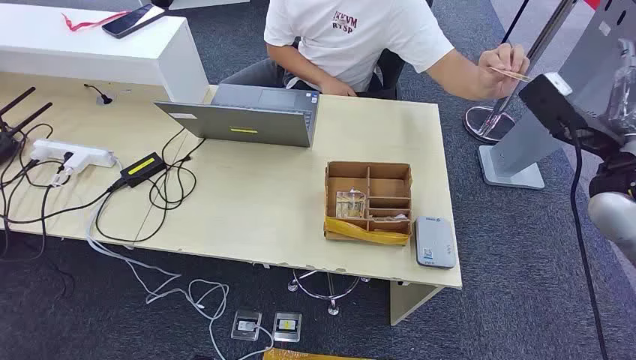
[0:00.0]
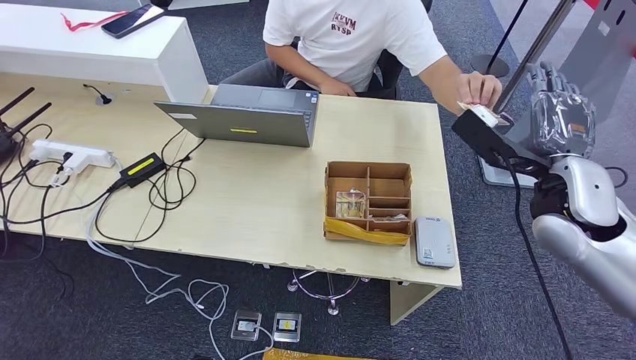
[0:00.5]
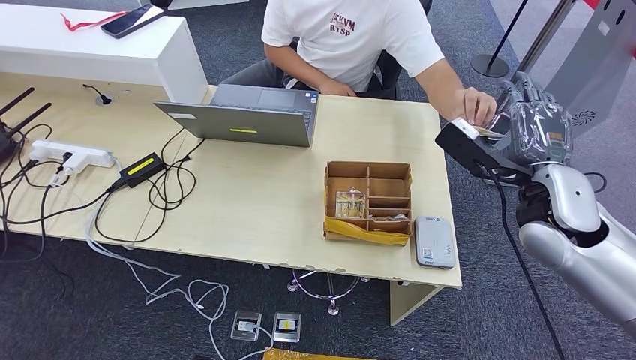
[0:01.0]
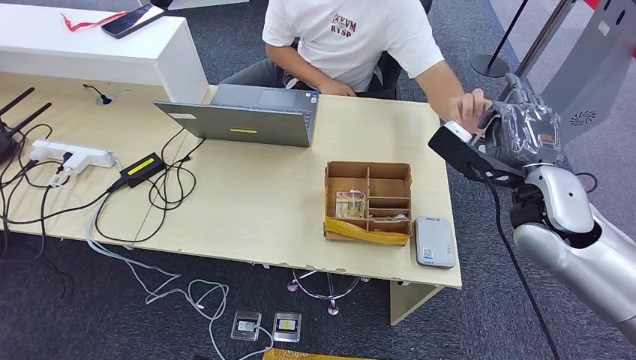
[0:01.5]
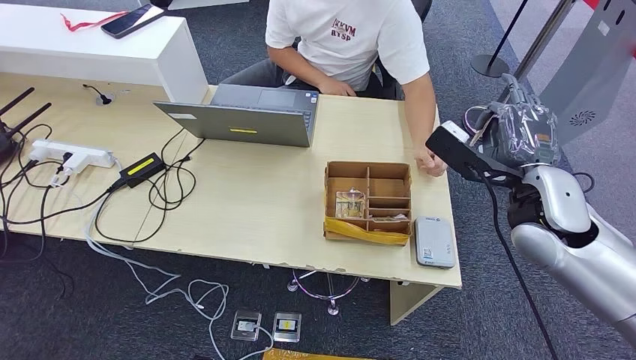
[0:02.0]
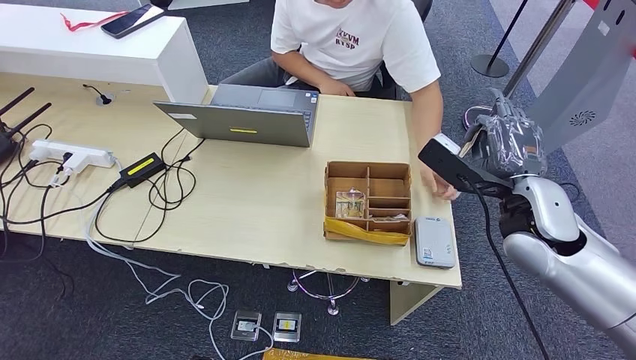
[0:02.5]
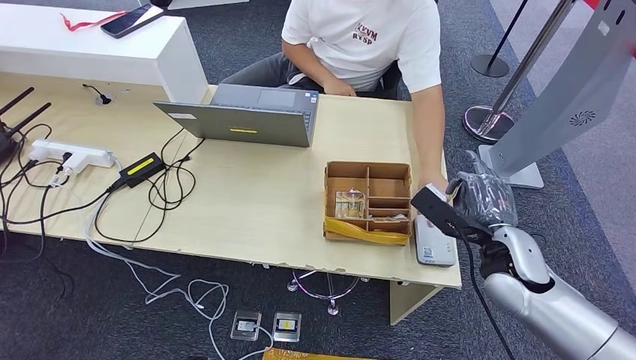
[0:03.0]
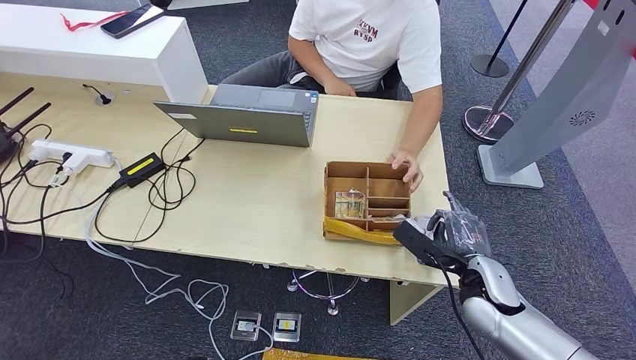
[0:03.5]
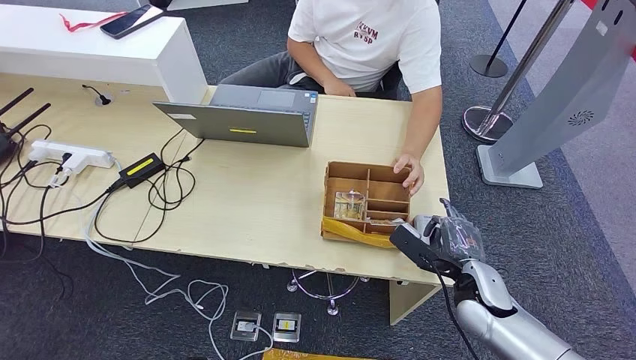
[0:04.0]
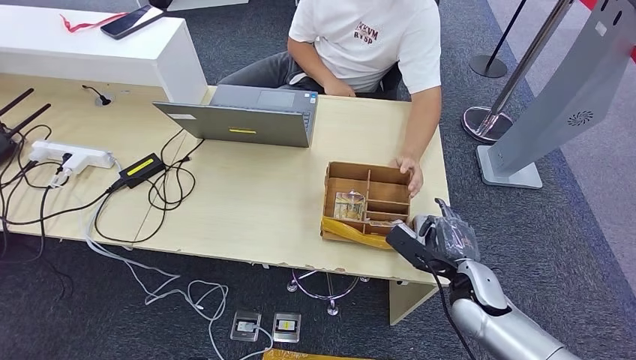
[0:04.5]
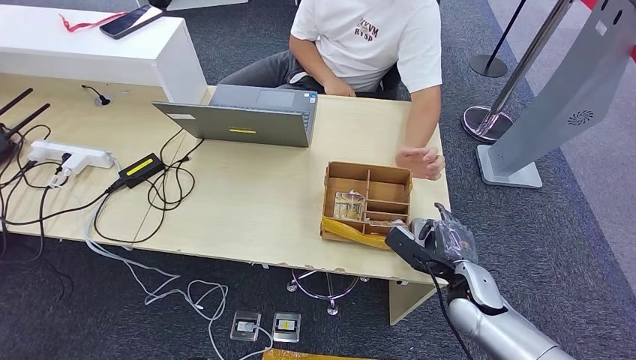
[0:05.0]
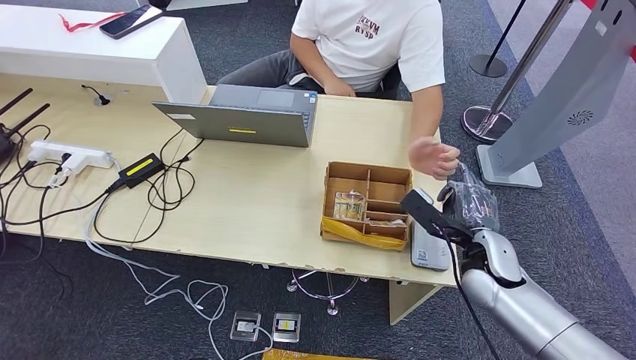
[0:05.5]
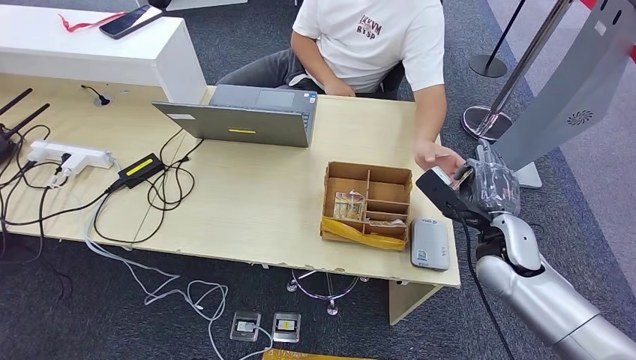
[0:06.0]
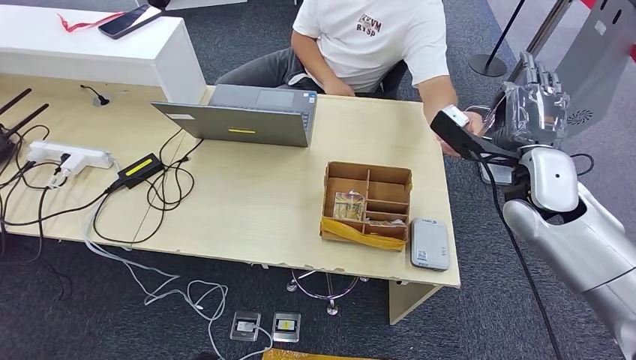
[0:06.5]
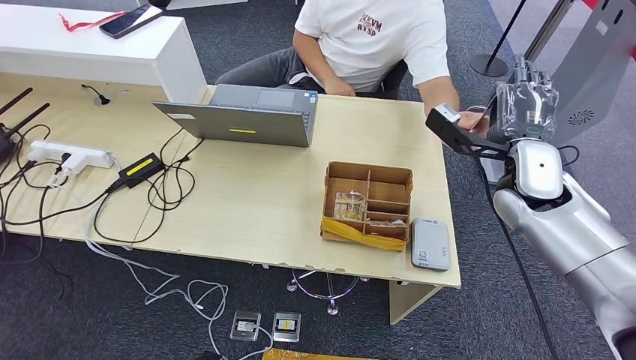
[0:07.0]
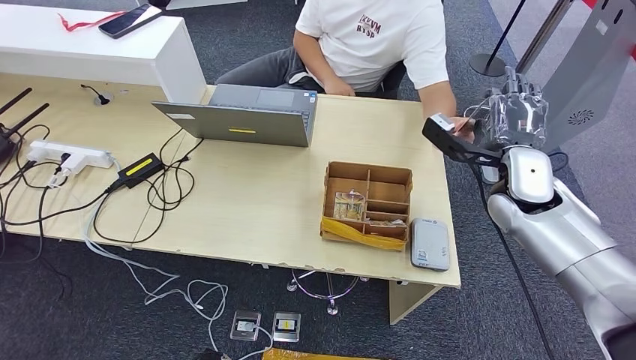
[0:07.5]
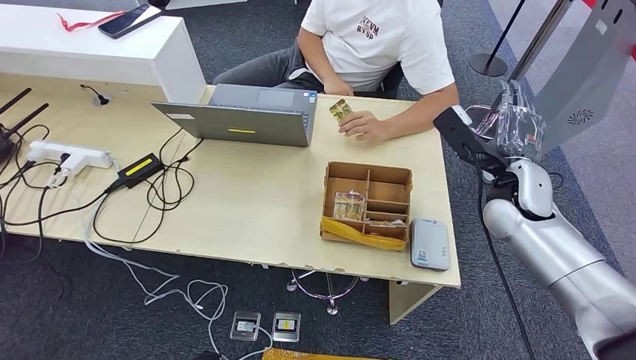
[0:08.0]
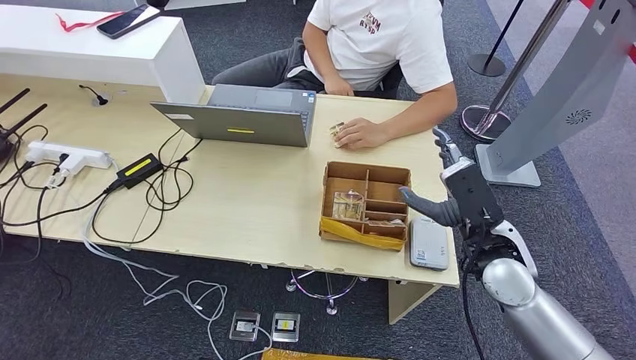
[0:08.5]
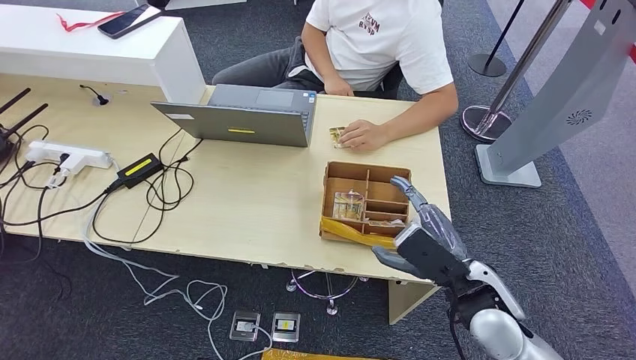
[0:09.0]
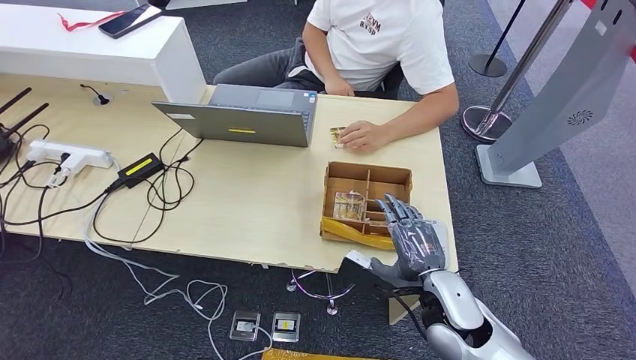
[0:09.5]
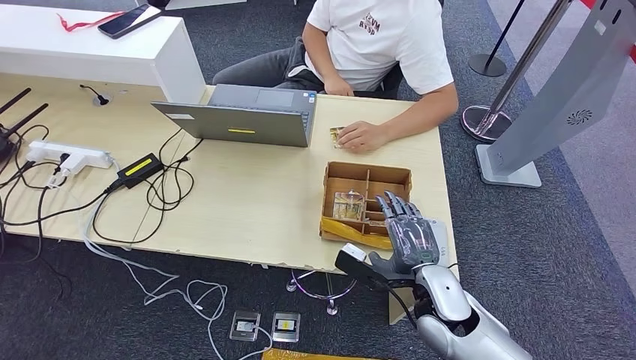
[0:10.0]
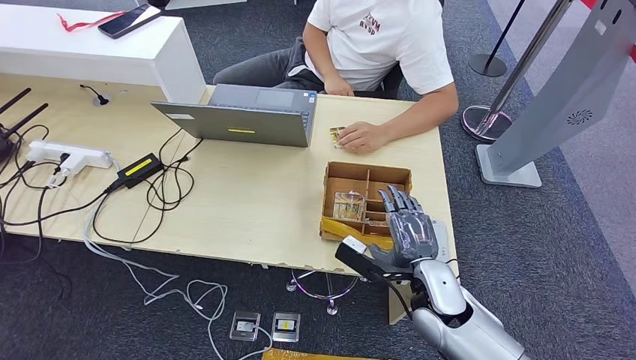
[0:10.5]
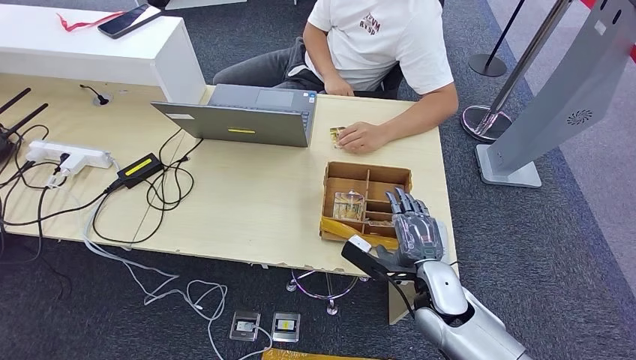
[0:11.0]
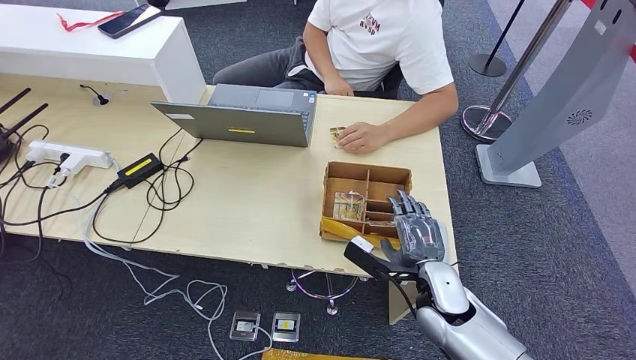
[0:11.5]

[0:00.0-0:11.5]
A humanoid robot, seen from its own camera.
Step, 0:00.0 to 0:01.5: Take the ID card from the person's hand.
Step, 0:02.5 to 0:05.5: Place the ID card on the card reader.
Step, 0:06.0 to 0:08.0: Hand the ID card to the person.
0:02.0 to 0:04.0: The right hand goes roughly 20 cm downward.
0:04.0 to 0:06.0: The right hand travels upward by about 10 cm.
0:06.0 to 0:07.5: The right hand is displaced upward and forward by some 10 cm.
0:07.5 to 0:09.5: The right hand travels backward, downward and to the left by about 25 cm.
0:09.5 to 0:11.5: The right hand moves roughly 5 cm.

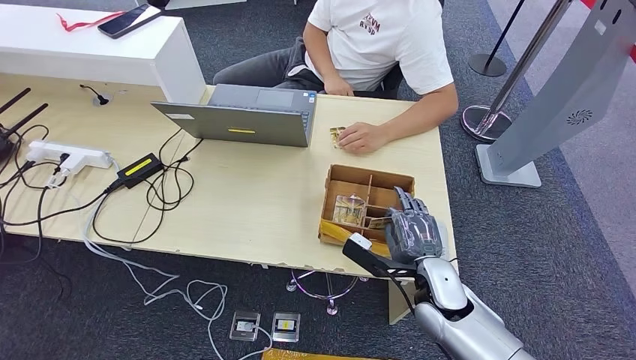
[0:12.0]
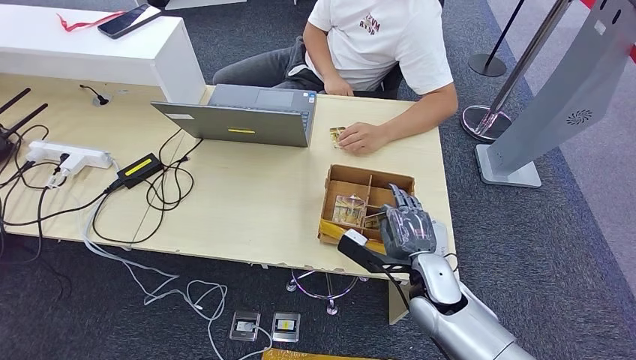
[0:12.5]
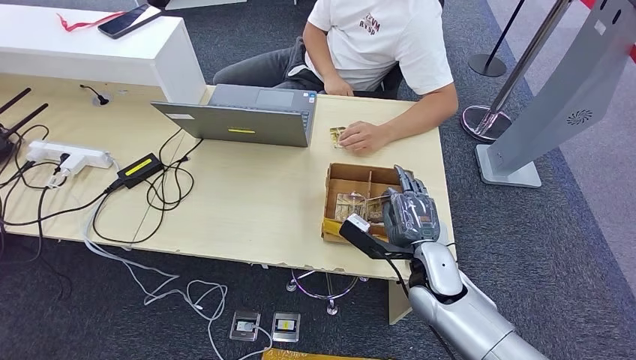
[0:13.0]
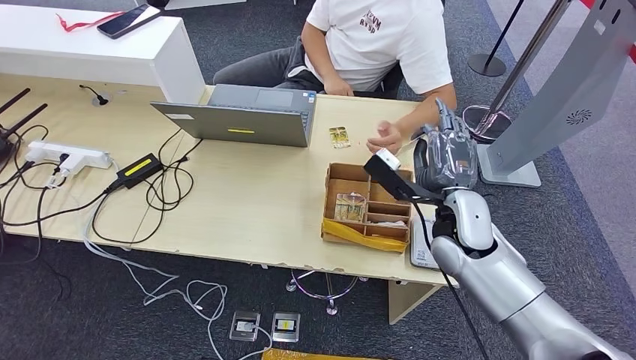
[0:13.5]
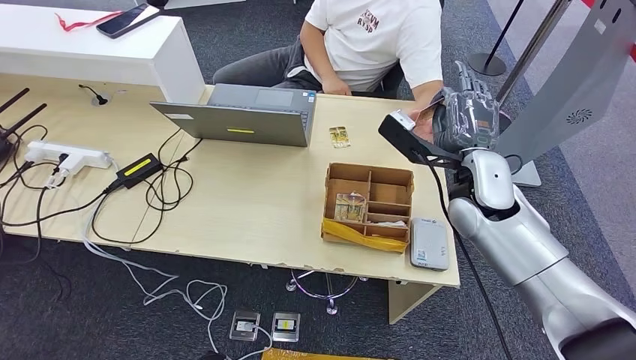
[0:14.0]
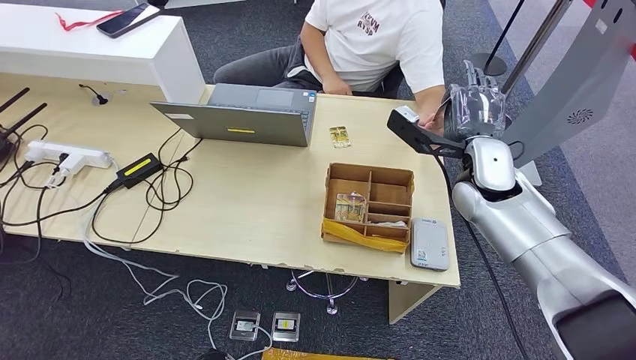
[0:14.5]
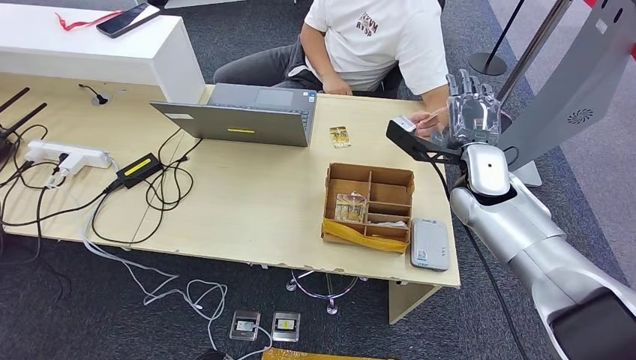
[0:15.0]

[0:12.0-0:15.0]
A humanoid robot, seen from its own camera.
Step, 0:12.0 to 0:13.0: Pick up the room key from the key card box.
Step, 0:14.0 to 0:15.0: Hand the room key to the person.
0:12.0 to 0:13.5: The right hand goes some 15 cm upward and forward.
0:13.5 to 0:15.0: The right hand is displaced forward by about 5 cm.
